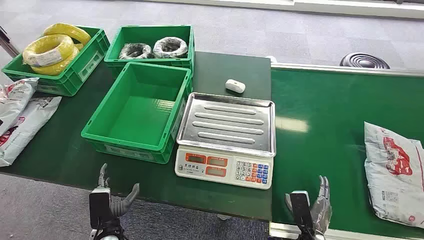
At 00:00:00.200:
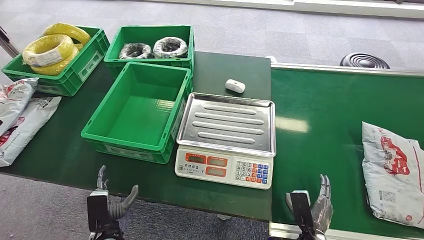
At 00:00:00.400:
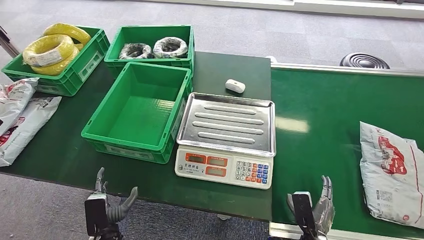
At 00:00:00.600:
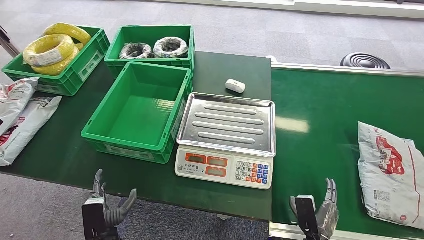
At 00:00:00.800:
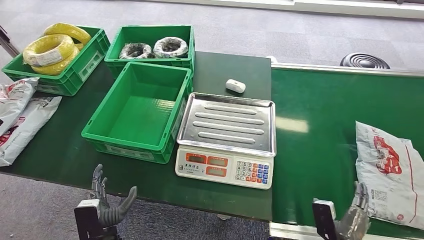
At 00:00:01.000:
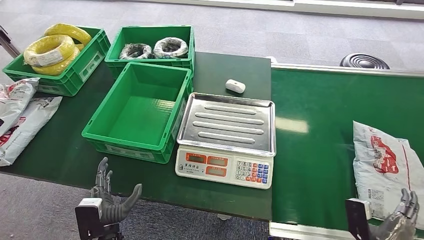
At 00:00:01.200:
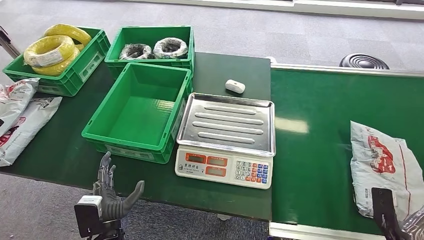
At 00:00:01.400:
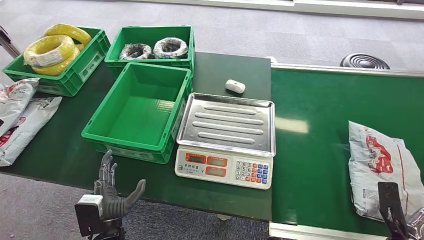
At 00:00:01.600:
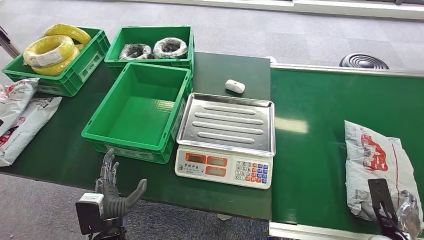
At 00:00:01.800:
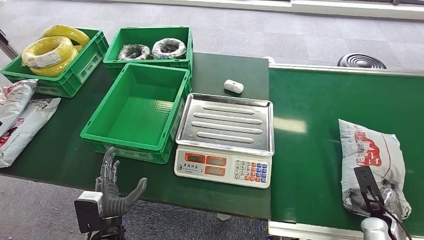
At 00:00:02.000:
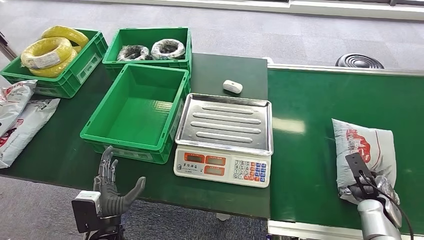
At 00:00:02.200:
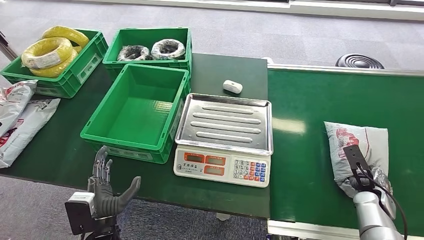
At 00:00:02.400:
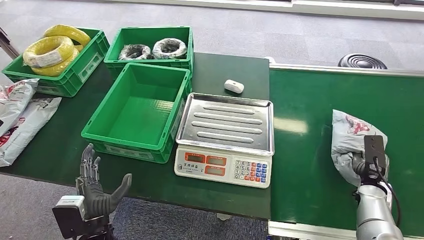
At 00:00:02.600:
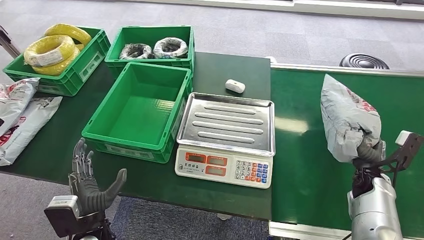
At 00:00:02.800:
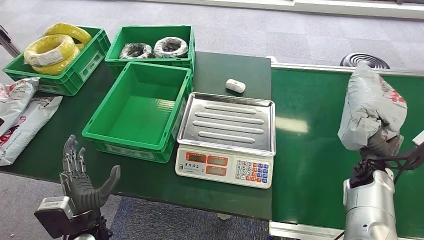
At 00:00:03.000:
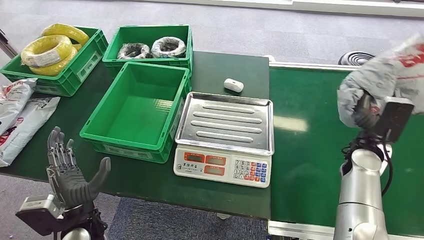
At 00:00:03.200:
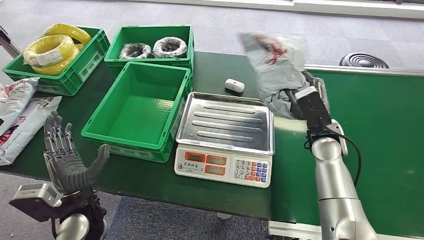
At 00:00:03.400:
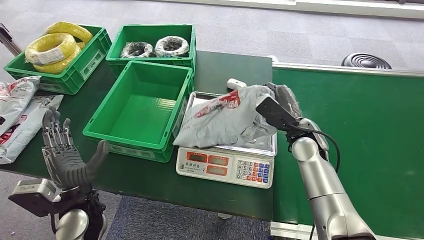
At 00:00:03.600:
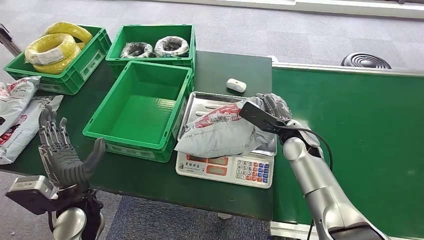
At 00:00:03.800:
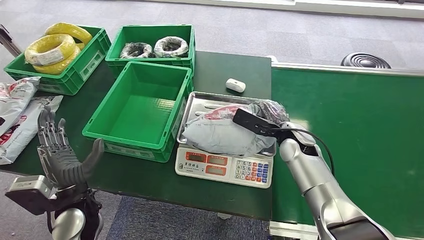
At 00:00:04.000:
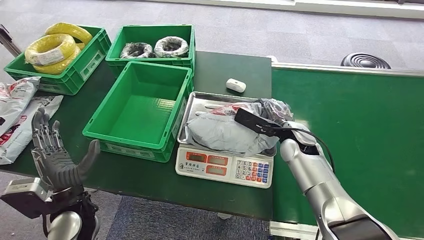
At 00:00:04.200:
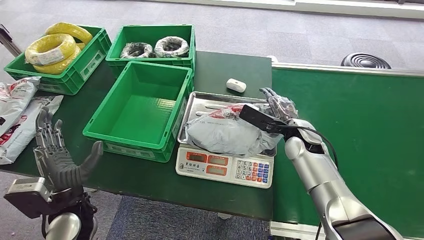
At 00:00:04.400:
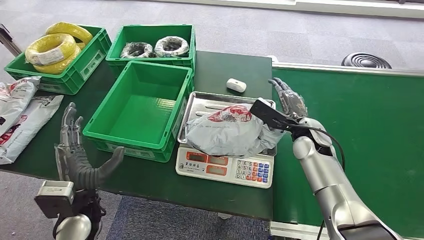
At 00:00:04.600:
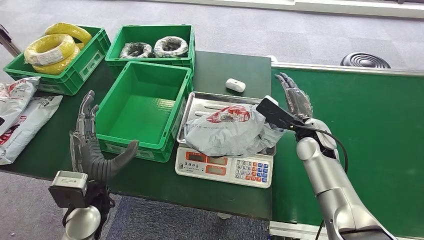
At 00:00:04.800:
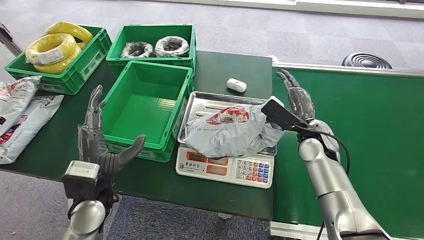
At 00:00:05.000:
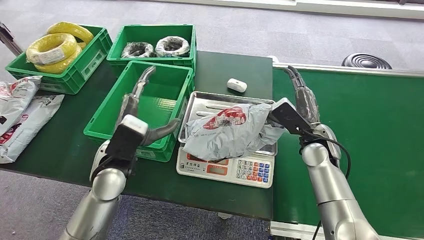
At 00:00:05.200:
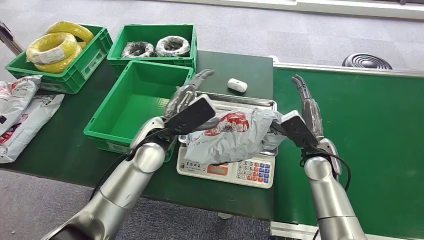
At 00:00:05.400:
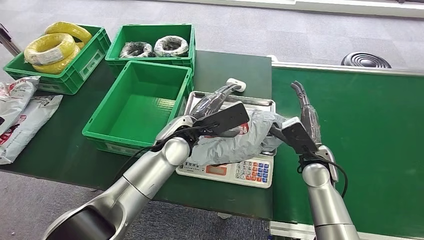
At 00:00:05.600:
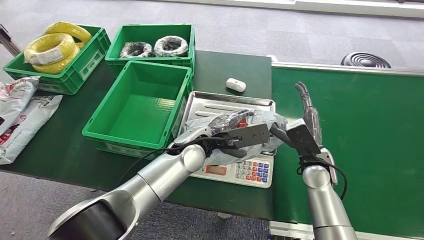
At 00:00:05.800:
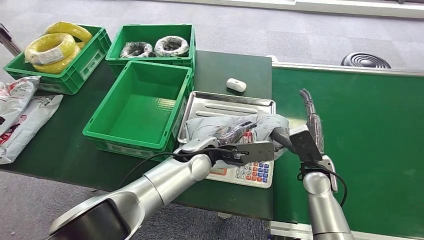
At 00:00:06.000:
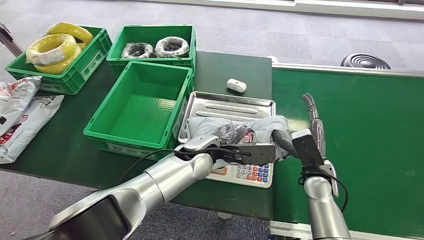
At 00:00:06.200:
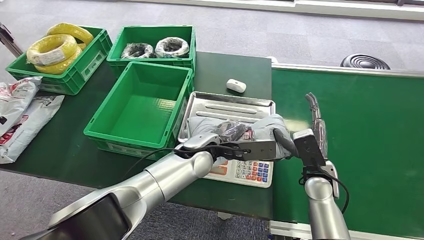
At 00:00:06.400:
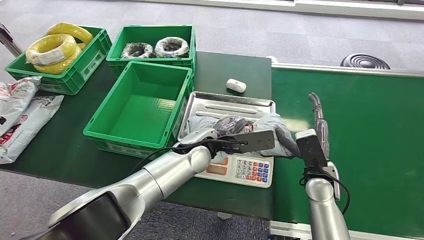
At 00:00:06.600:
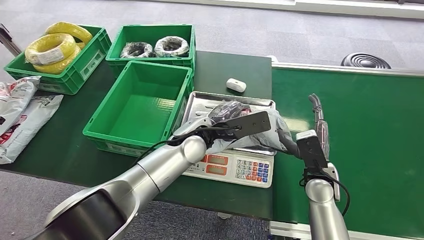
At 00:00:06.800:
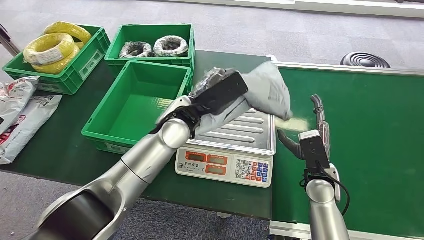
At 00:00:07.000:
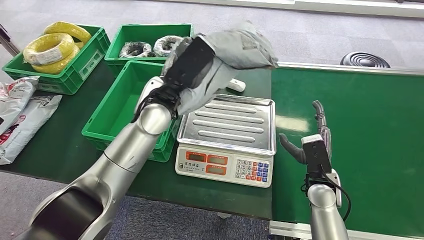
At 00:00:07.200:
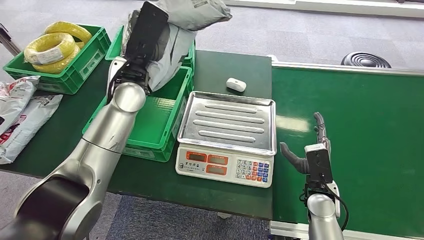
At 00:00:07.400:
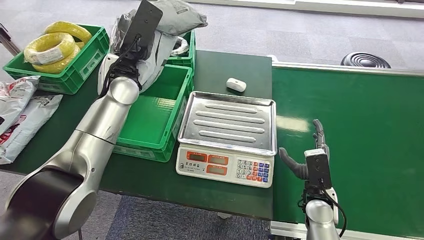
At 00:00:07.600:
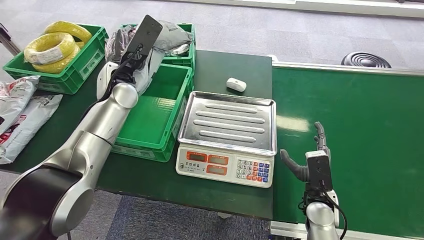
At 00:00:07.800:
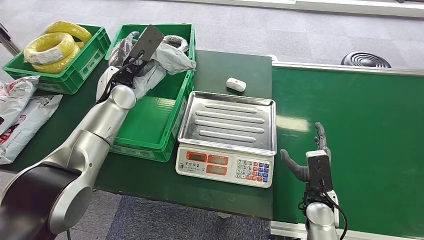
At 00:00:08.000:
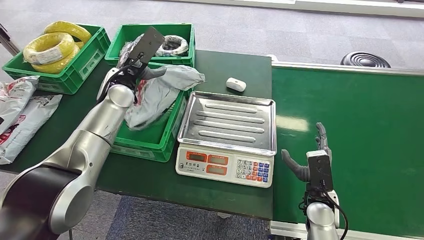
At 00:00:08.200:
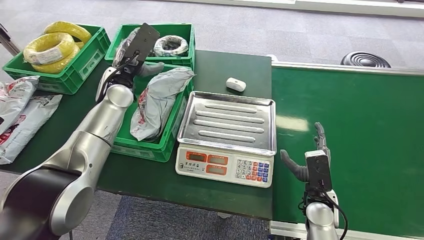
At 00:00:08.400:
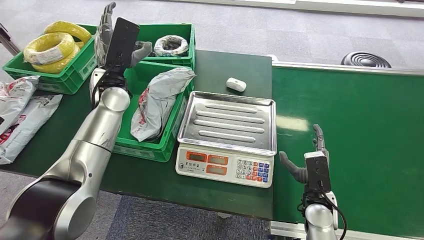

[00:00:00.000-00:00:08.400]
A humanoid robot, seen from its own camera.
Step, 00:00:00.000 to 00:00:02.600: Pick up the package from the conveyor belt.
Step, 00:00:03.000 to 00:00:04.400: Place the package onto the inbound machine.
Step, 00:00:04.600 to 00:00:07.200: Pick up the package from the inbound machine.
Step, 00:00:07.400 to 00:00:08.400: Place the package into the parcel locker.
00:00:01.400 to 00:00:02.800: The left hand shifts by about 5 cm; the right hand shifts about 20 cm forward and upward.
